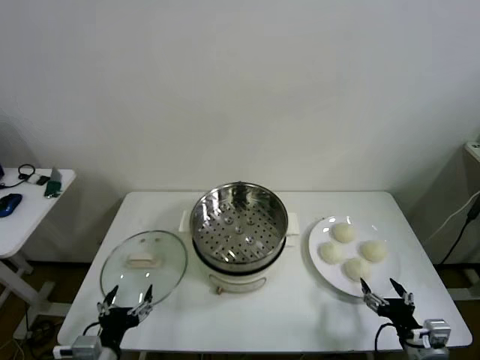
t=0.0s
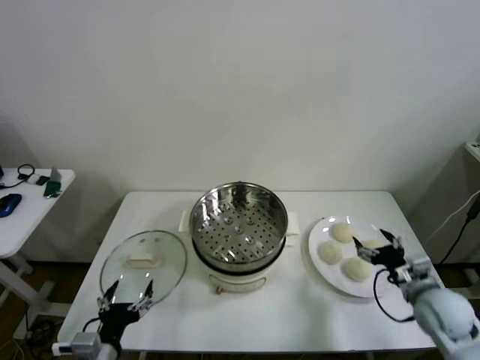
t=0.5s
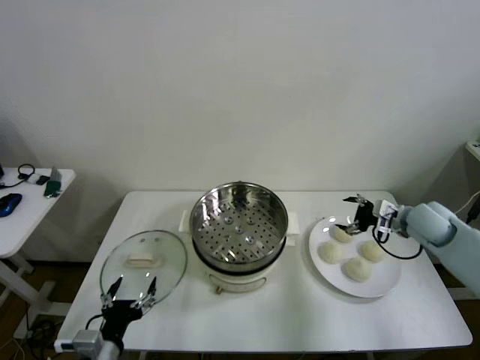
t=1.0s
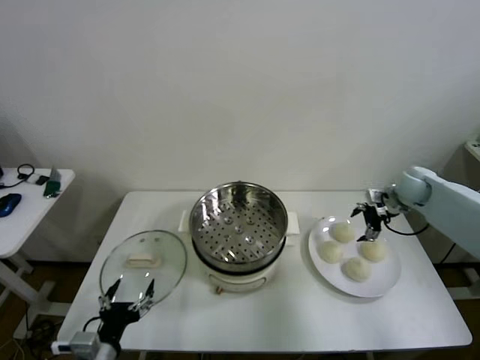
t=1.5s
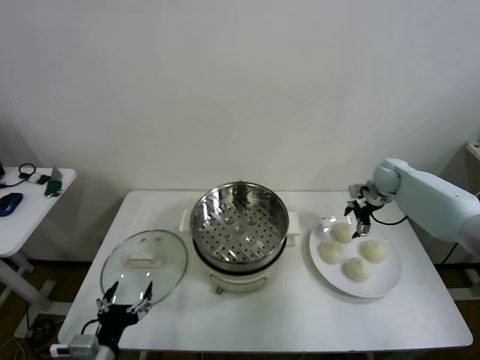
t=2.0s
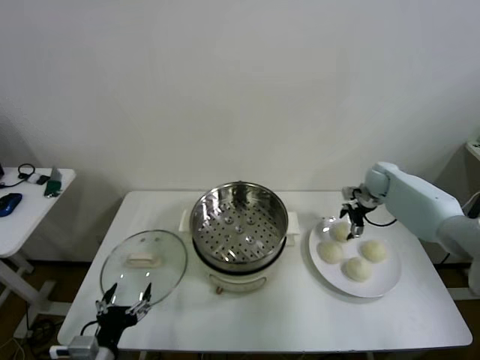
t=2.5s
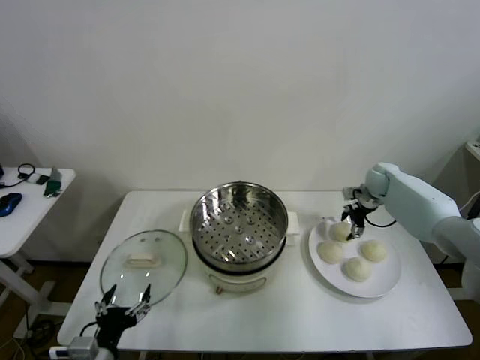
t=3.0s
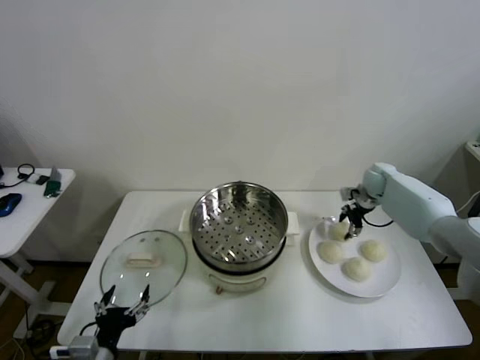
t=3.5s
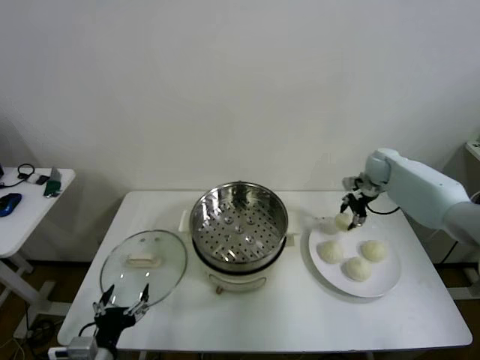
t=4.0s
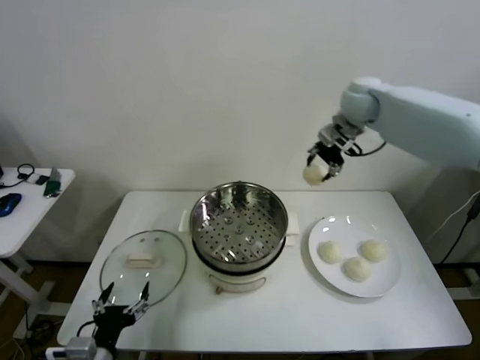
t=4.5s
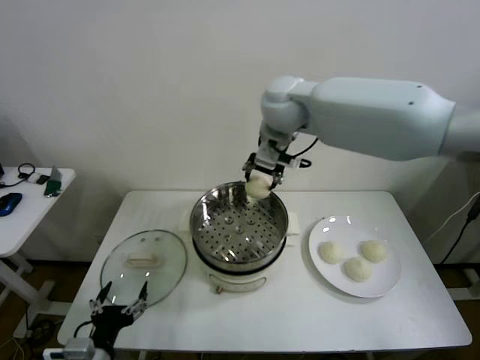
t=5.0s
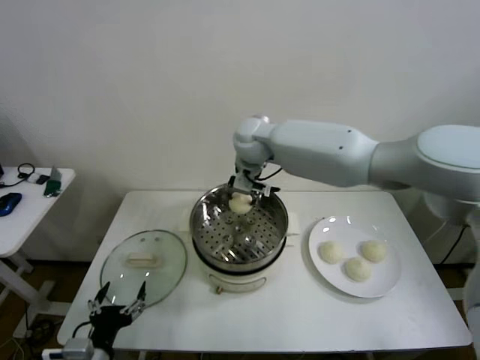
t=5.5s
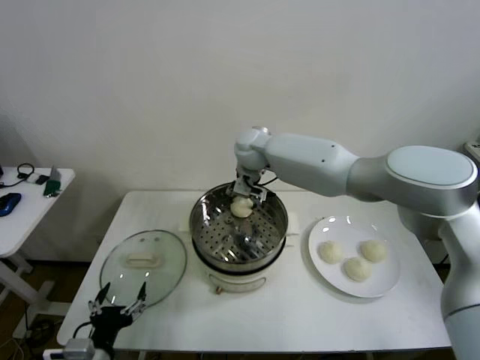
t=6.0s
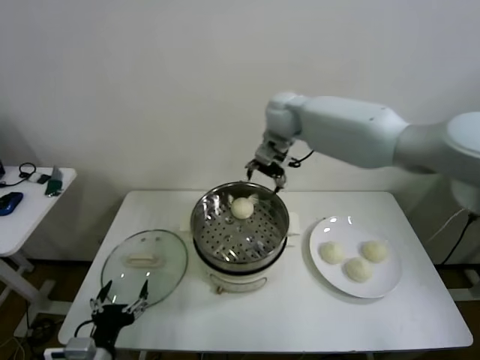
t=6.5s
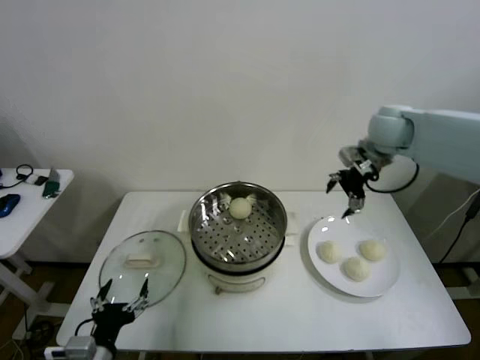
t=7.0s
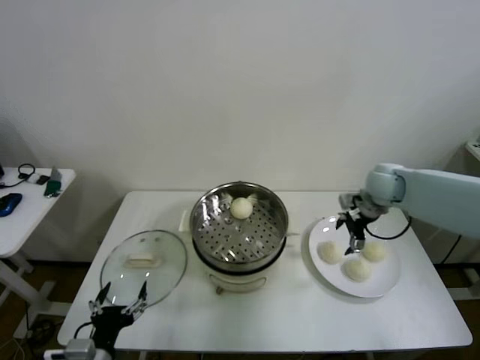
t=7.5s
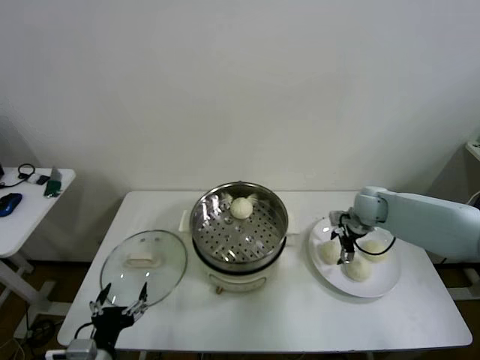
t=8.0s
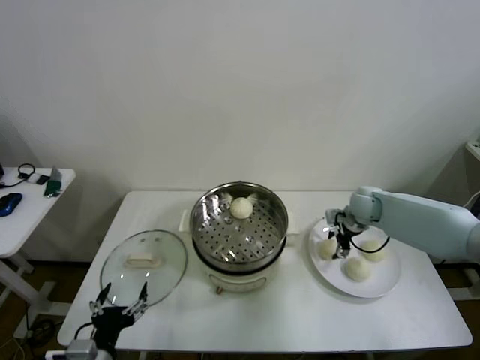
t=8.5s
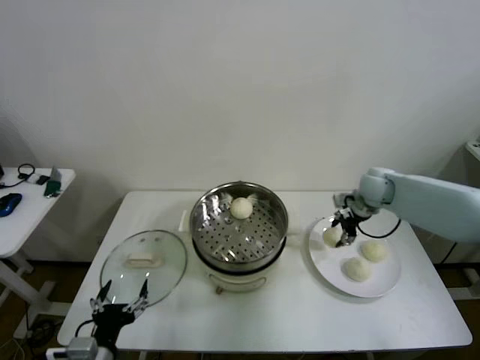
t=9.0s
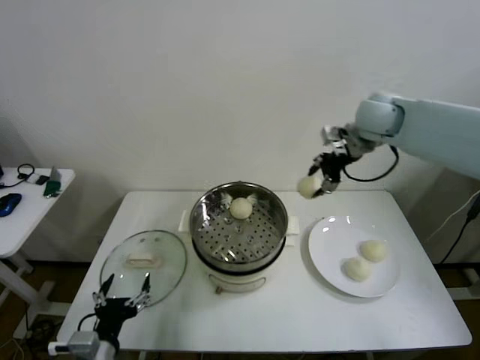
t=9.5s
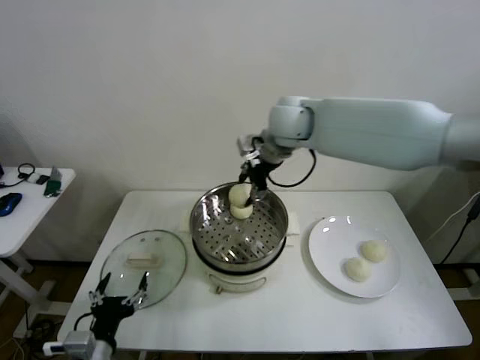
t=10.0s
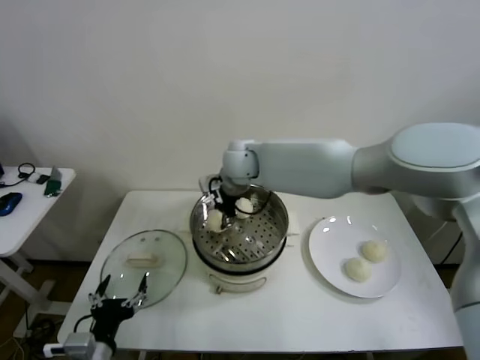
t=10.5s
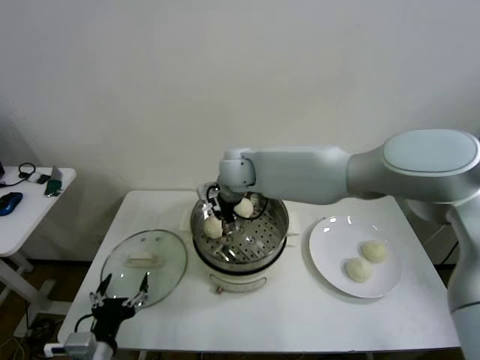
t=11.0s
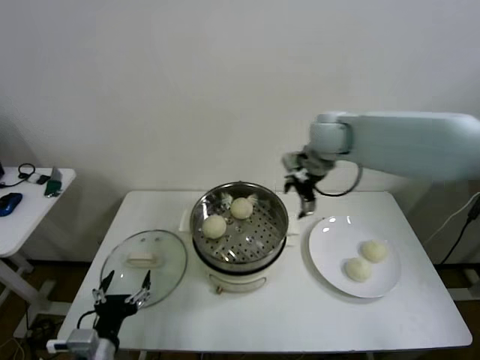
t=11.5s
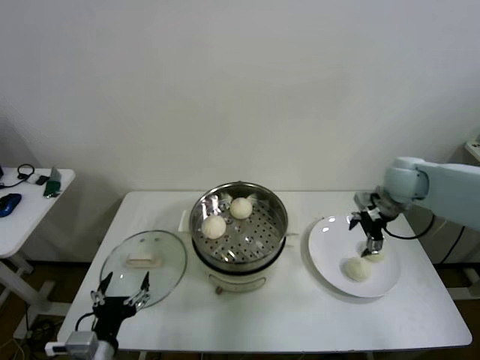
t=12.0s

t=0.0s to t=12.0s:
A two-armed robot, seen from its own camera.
Step, t=0.0s to t=3.0s: Grasp the baozi in the plate with right gripper.
Step, t=3.5s to t=6.0s: Place the baozi on the steamer with right gripper.
Step, t=6.5s to t=8.5s: Grasp the baozi in the plate with right gripper.
Step, t=9.0s to t=10.5s: Place the baozi on the steamer with right gripper.
t=2.0s to t=4.0s: The right gripper goes about 5 cm upward, and closes its fingers.
t=4.0s to t=6.0s: The right gripper moves to the left, some 35 cm, and opens.
t=6.0s to t=8.0s: The right gripper shifts approximately 35 cm to the right and downward.
t=8.0s to t=10.0s: The right gripper moves to the left and upward, some 35 cm, and closes.
t=10.0s to t=12.0s: The right gripper shifts roughly 30 cm to the right and downward, and opens its fingers.

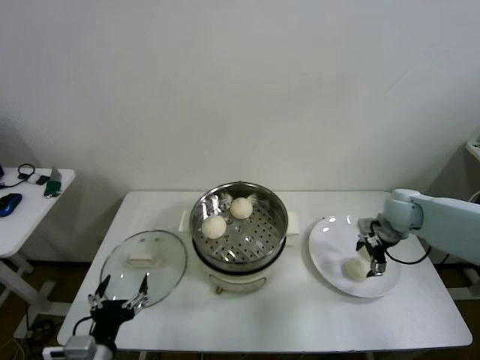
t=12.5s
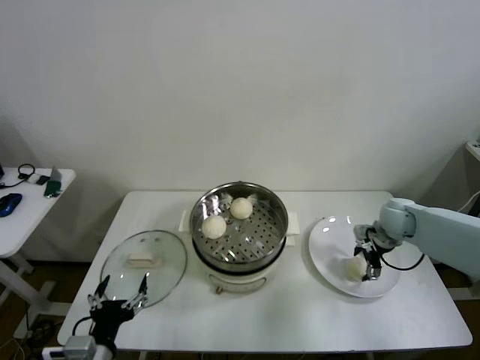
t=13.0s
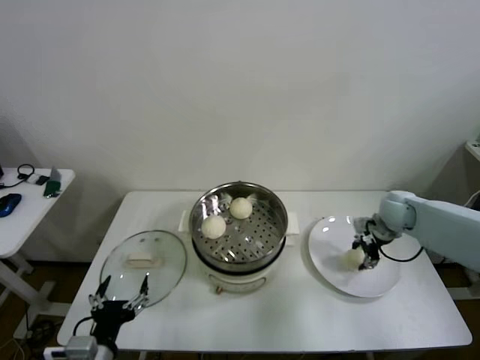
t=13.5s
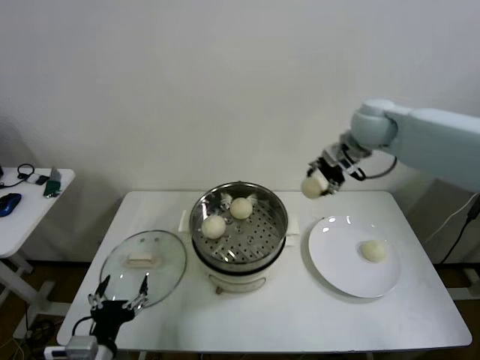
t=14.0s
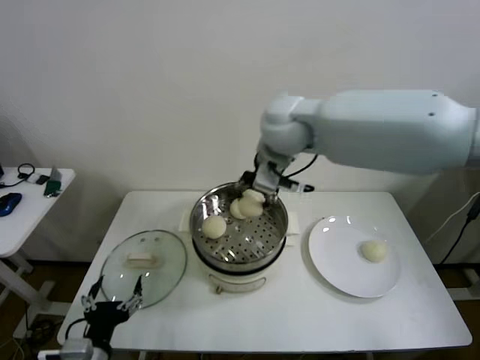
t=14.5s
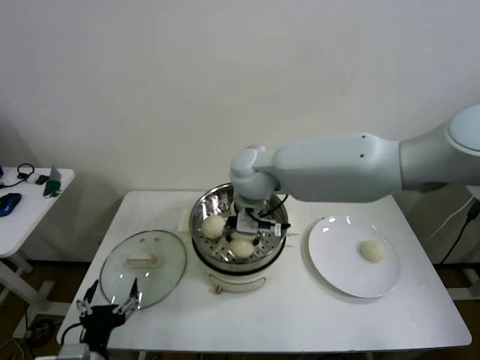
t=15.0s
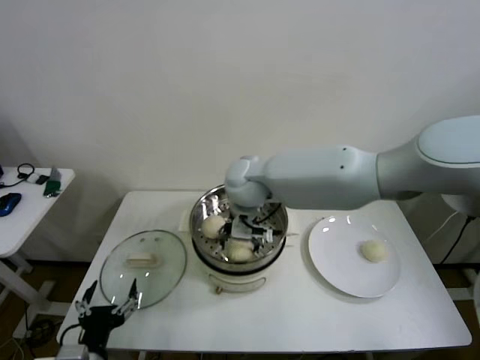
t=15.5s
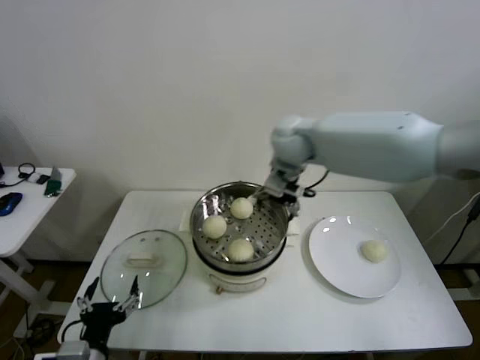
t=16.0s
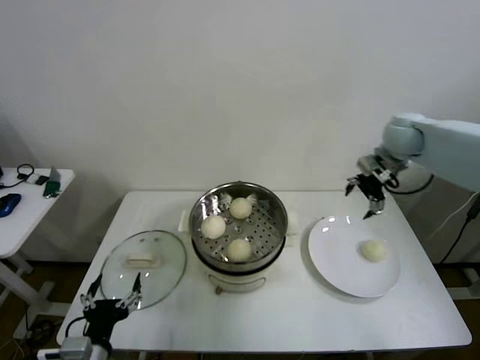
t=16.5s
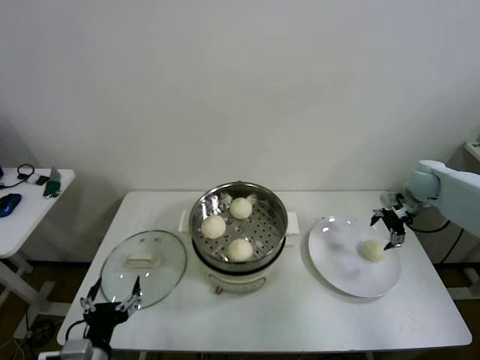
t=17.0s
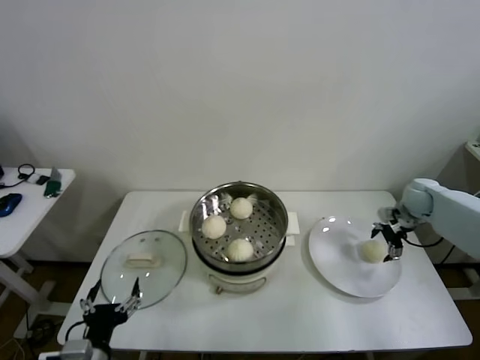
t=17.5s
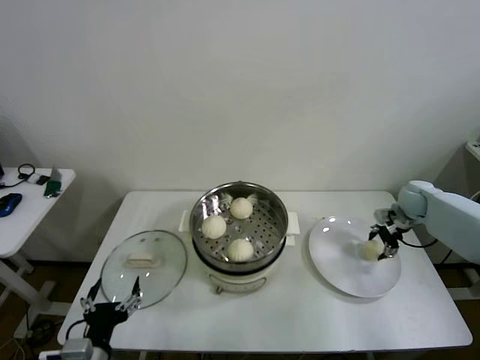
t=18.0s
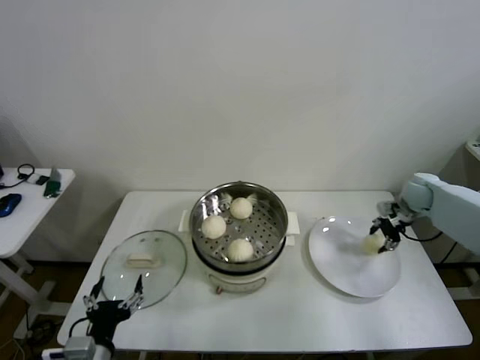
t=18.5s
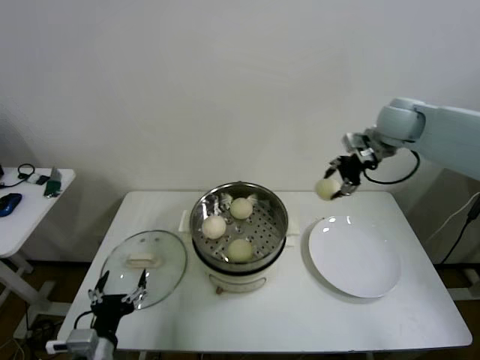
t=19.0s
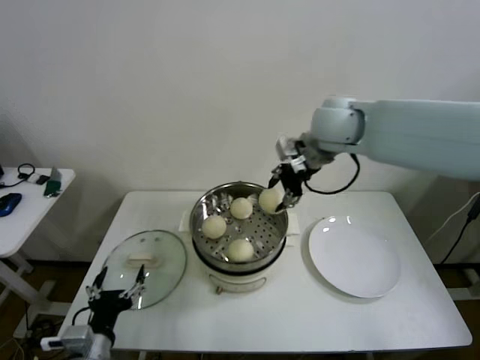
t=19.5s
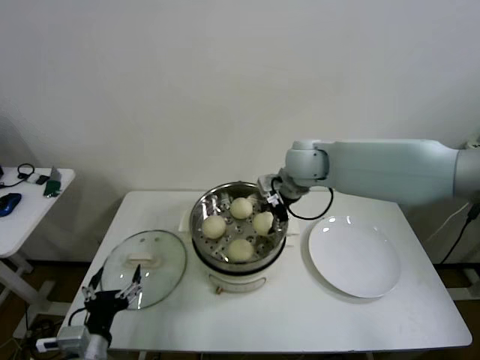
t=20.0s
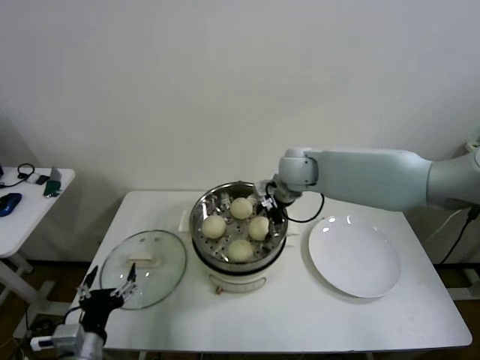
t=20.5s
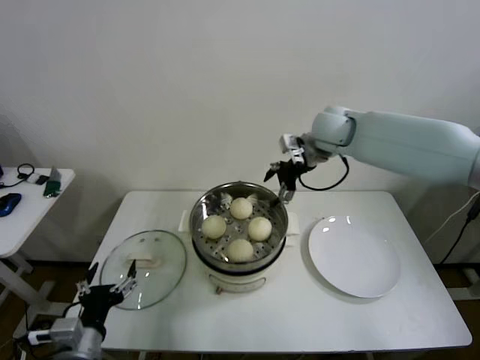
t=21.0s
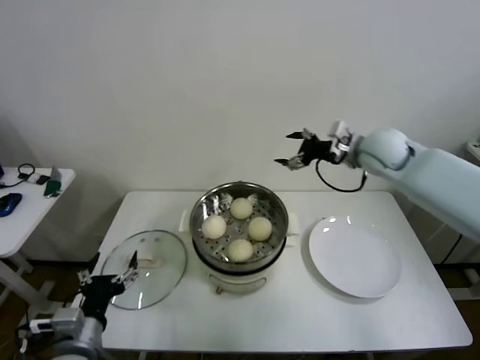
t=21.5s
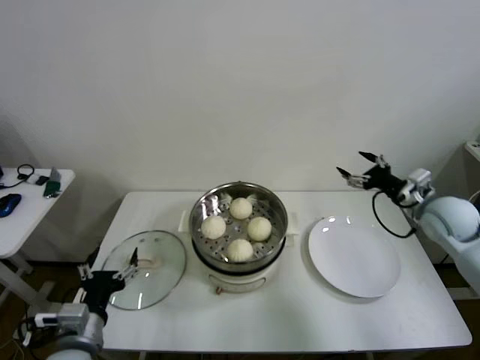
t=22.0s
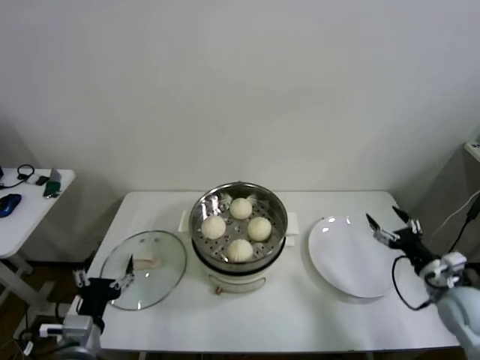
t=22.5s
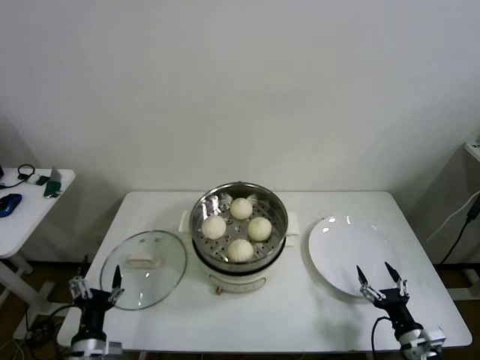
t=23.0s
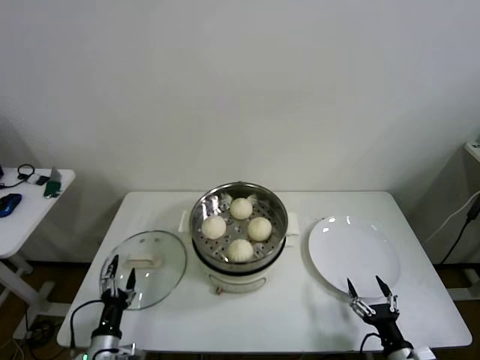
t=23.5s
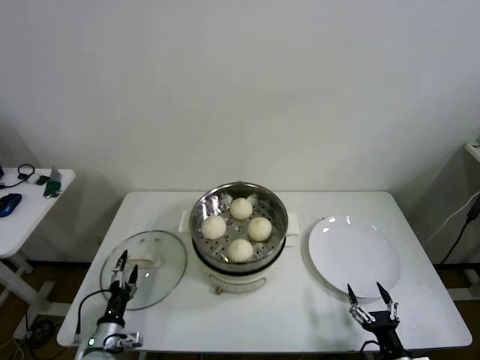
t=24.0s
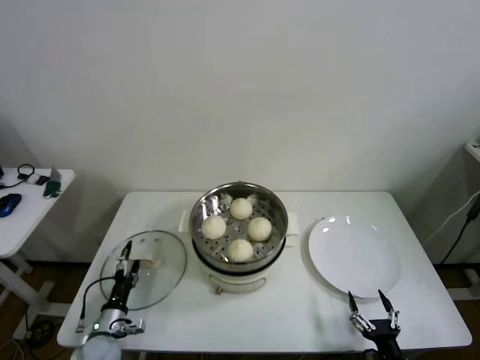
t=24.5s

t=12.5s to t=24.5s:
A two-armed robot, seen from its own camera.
Step, t=13.5s to t=15.5s: Place the baozi on the steamer with right gripper.
Step, t=16.0s to t=18.0s: Grasp the baozi in the plate with right gripper.
Step, t=18.5s to t=20.5s: Place the baozi on the steamer with right gripper.
t=12.5s to t=14.5s: The right gripper is displaced to the left and upward by about 40 cm, and closes its fingers.
t=14.5s to t=16.5s: The right gripper heads to the right, covering about 30 cm, and opens its fingers.
t=16.5s to t=18.5s: The right gripper travels downward and to the right by some 15 cm, and closes.
t=18.5s to t=20.5s: The right gripper is displaced to the left by roughly 35 cm, and opens.
t=20.5s to t=22.5s: The right gripper shifts approximately 50 cm to the right, backward and downward.
t=22.5s to t=24.5s: The right gripper moves backward, downward and to the left, about 25 cm. Meanwhile the left gripper travels downward and forward by about 20 cm.

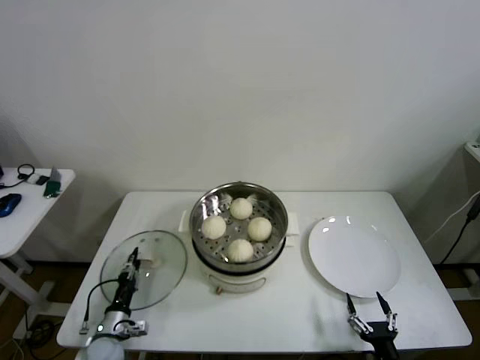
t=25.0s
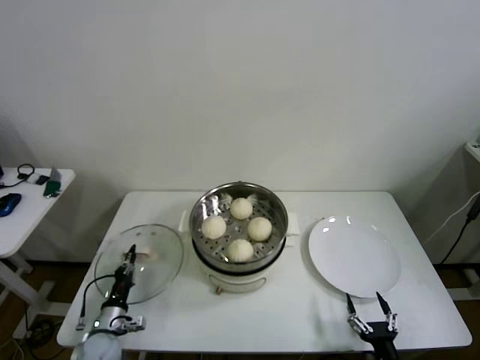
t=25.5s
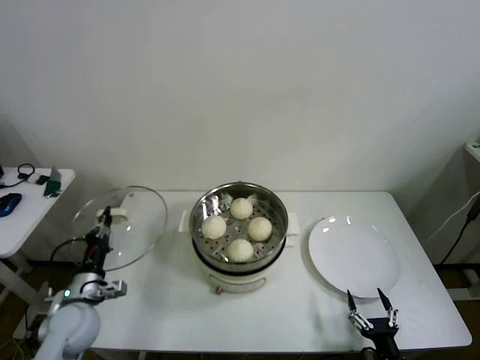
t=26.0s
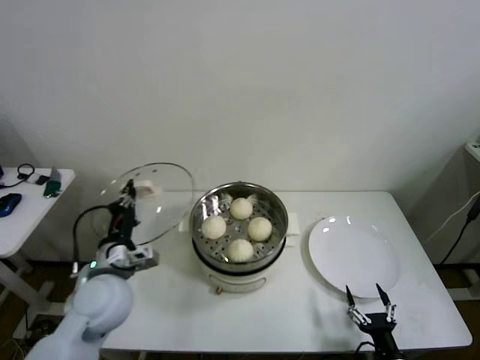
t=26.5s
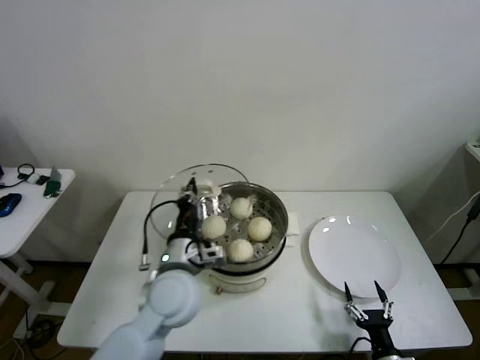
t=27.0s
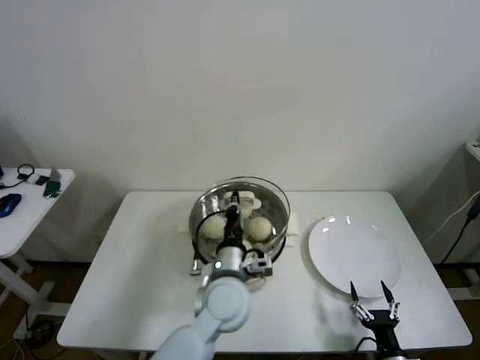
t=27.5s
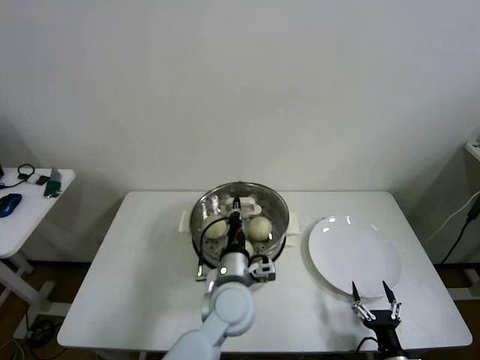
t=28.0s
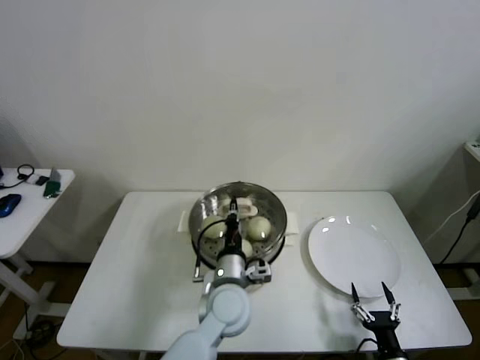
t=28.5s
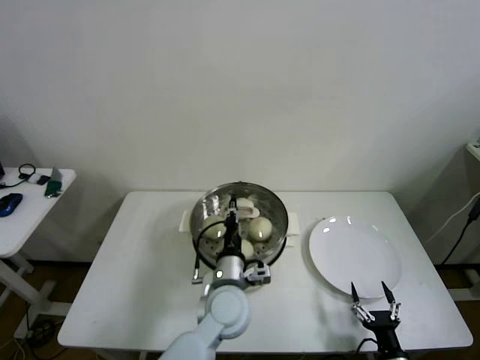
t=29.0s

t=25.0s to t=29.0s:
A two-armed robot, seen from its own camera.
Step, t=25.5s to t=29.0s: Place the pot lid on the steamer with left gripper.
t=25.0s to t=27.0s: The left gripper moves upward and to the right, roughly 35 cm, and closes up.
t=27.0s to t=29.0s: The left gripper heads to the right and downward, covering about 15 cm.
